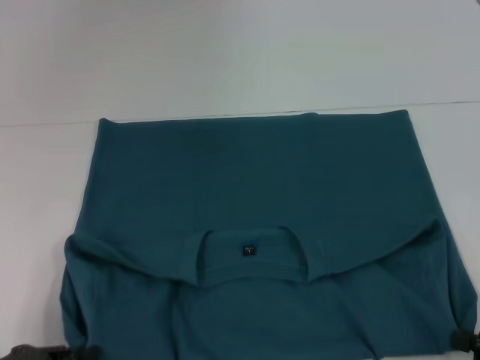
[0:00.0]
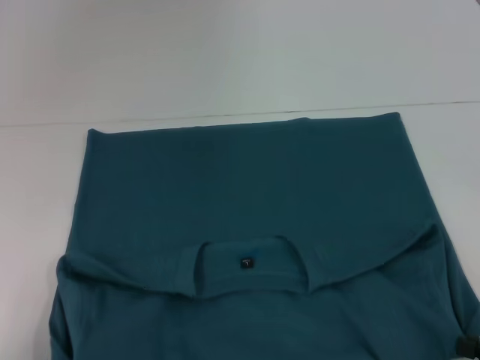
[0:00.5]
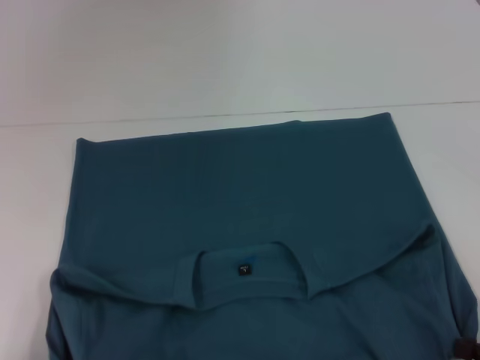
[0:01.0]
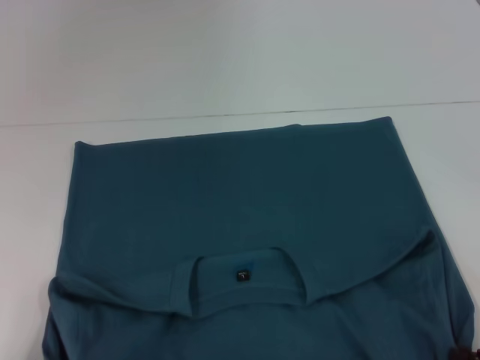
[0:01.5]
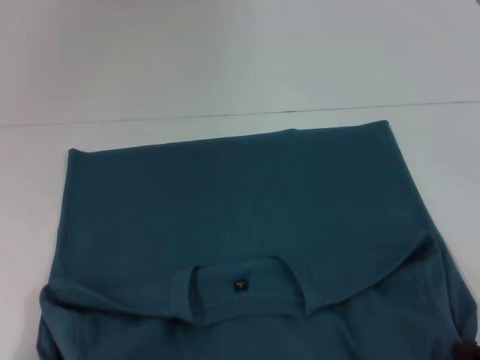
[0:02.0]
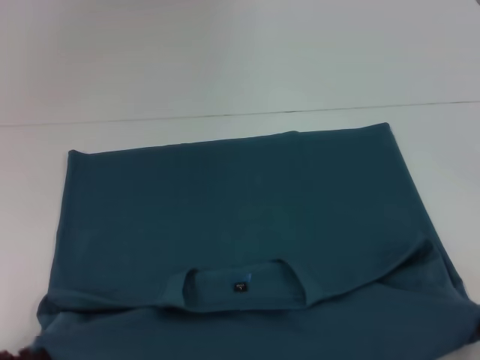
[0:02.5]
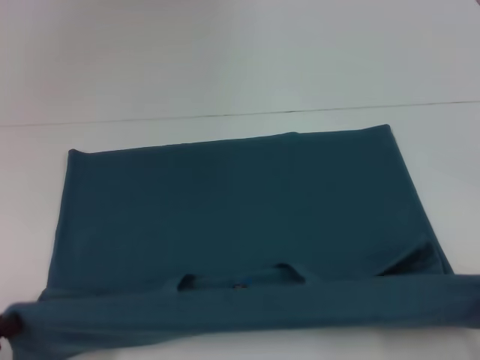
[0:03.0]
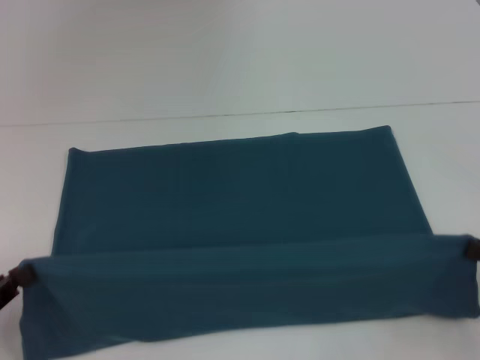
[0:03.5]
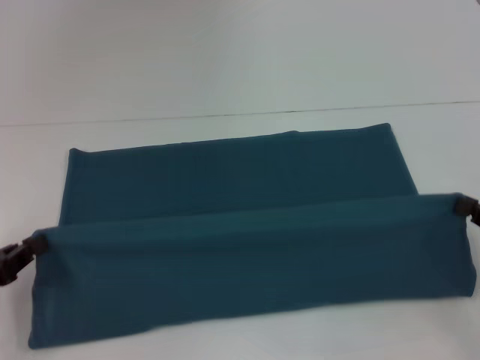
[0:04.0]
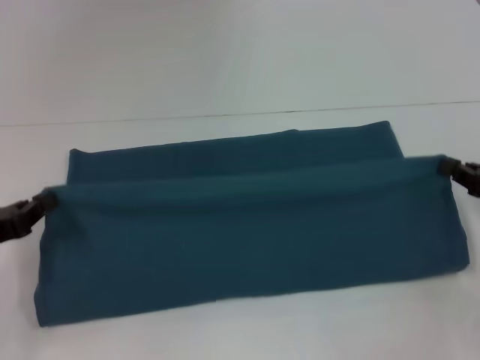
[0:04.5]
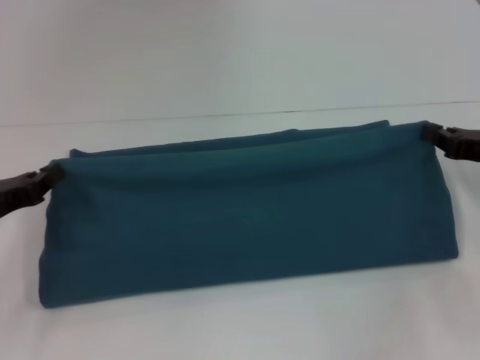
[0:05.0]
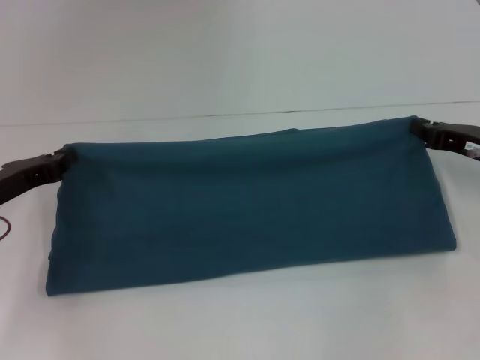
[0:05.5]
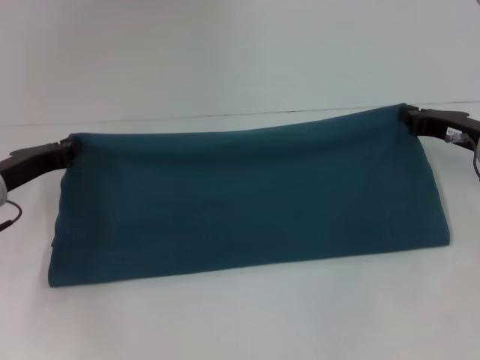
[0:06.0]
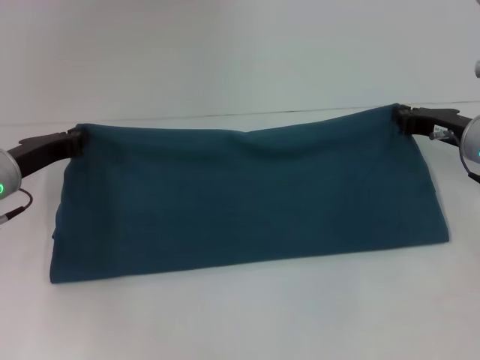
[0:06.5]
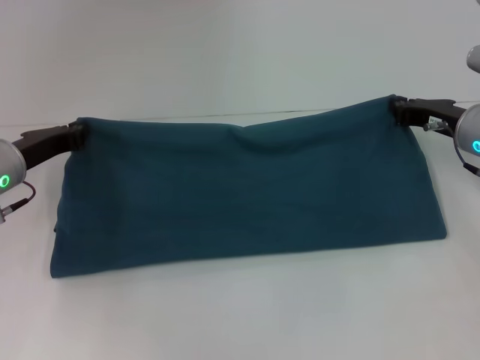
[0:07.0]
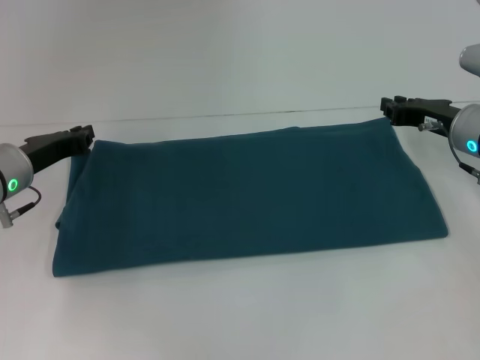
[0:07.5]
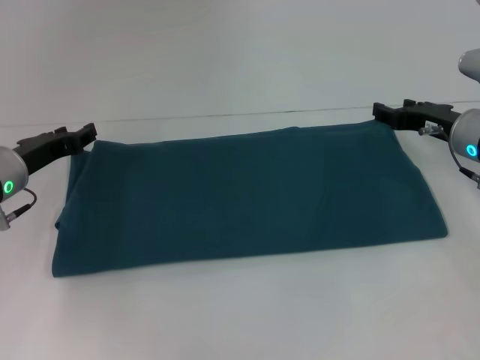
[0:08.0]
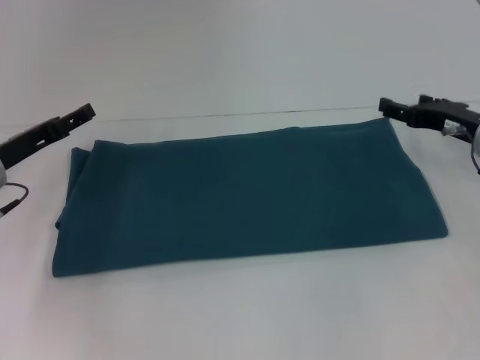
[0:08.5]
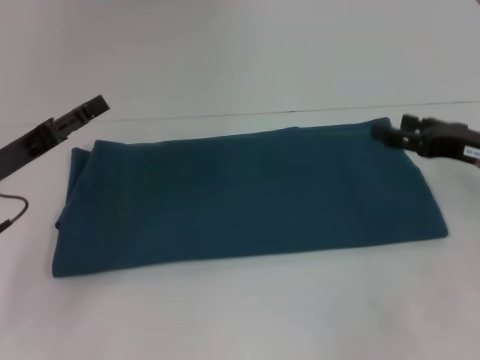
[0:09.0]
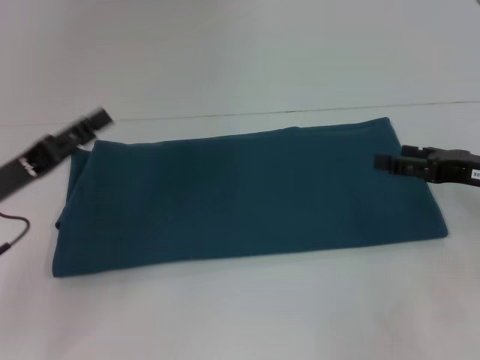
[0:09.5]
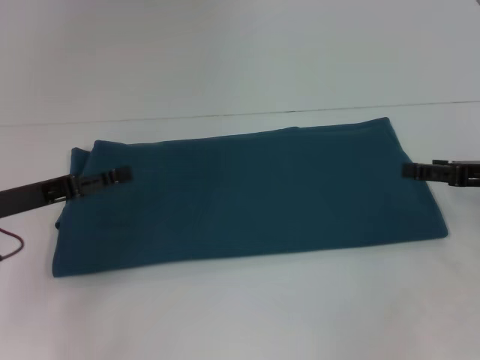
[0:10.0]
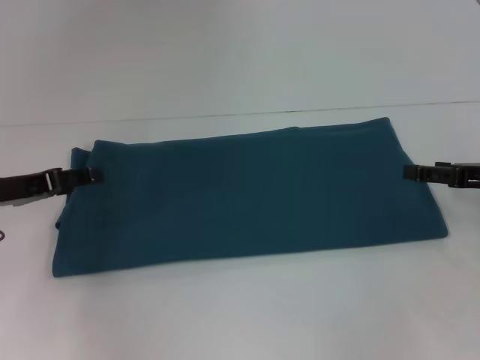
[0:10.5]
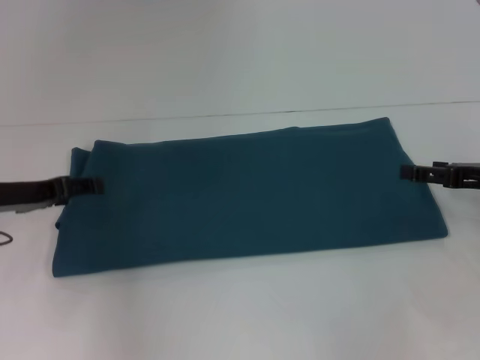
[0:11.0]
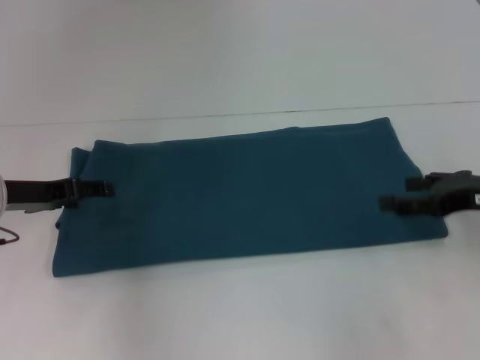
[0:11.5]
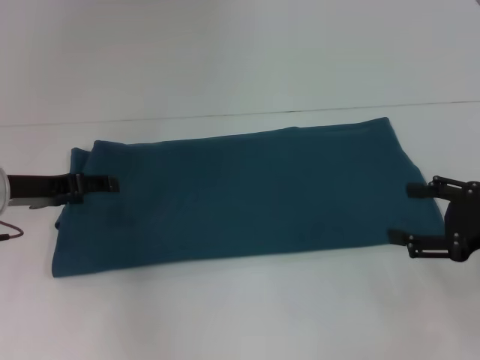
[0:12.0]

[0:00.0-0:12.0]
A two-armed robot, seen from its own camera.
Step, 0:01.0 to 0:07.0: Fold the clothes to the right.
0:00.0 to 0:02.0: The left gripper is displaced backward by approximately 5 cm.
0:02.0 to 0:04.0: The two grippers go approximately 10 cm forward.
0:04.0 to 0:06.0: The left gripper is displaced forward and to the right by roughly 15 cm. The right gripper goes some 15 cm forward and to the left.
0:06.0 to 0:08.0: The left gripper opens its fingers, while the right gripper opens up.
0:08.0 to 0:10.0: The right gripper shifts approximately 10 cm backward and to the right, and opens, while the left gripper moves backward, about 5 cm, and opens up.
0:10.0 to 0:12.0: The right gripper moves backward, approximately 5 cm.

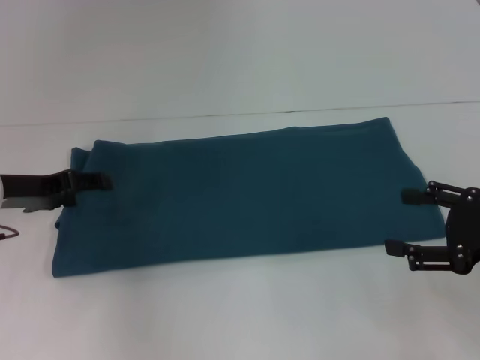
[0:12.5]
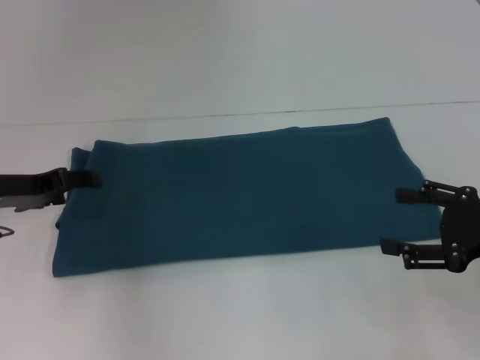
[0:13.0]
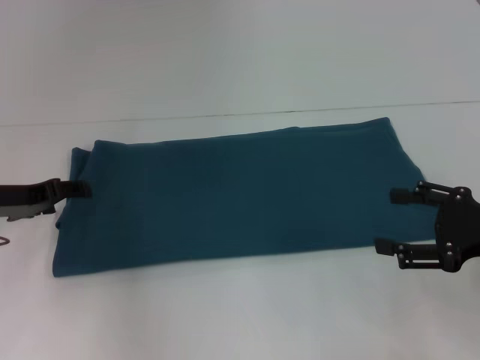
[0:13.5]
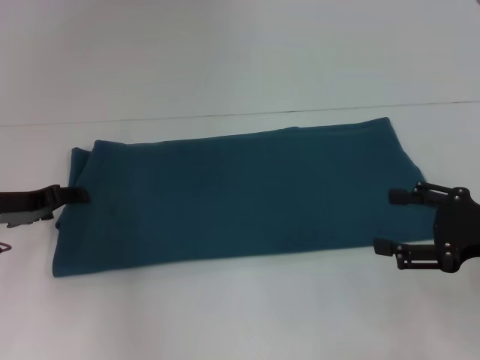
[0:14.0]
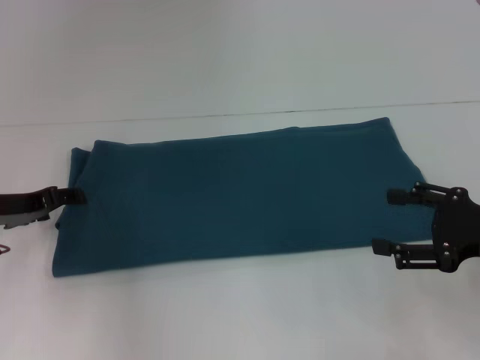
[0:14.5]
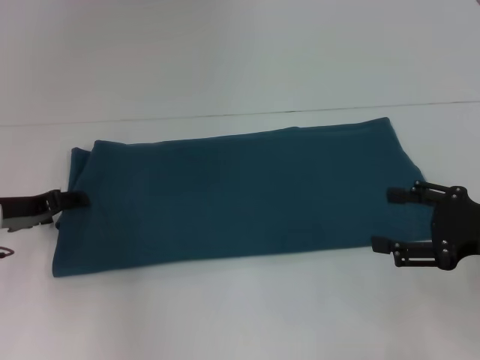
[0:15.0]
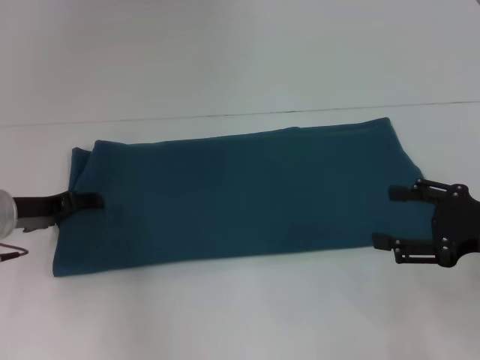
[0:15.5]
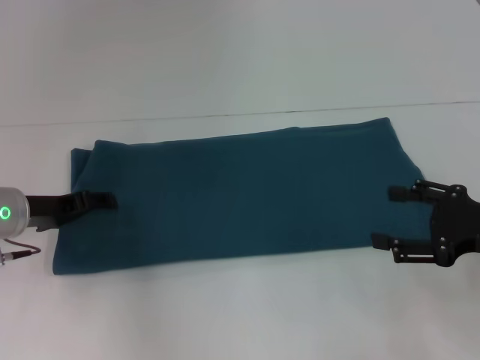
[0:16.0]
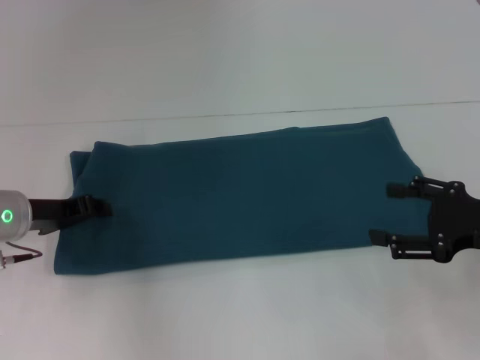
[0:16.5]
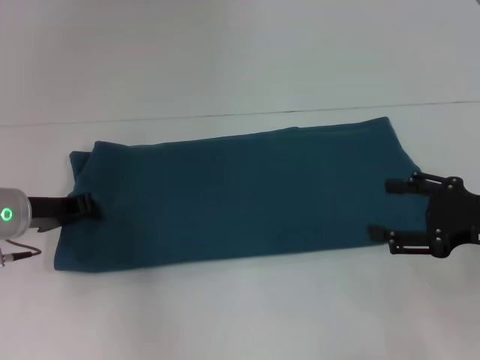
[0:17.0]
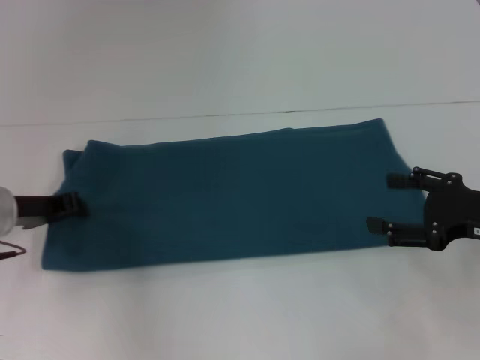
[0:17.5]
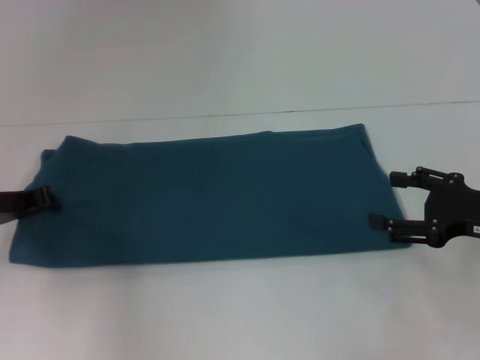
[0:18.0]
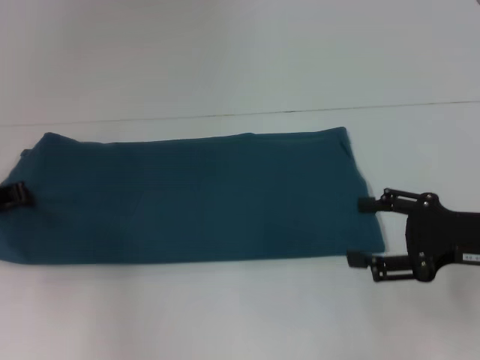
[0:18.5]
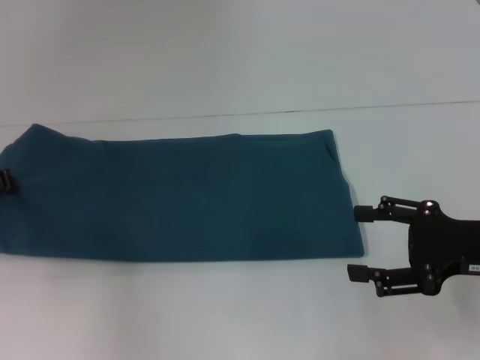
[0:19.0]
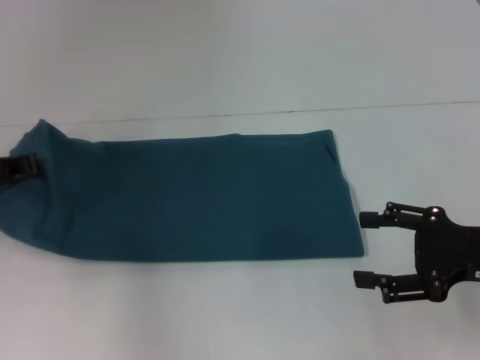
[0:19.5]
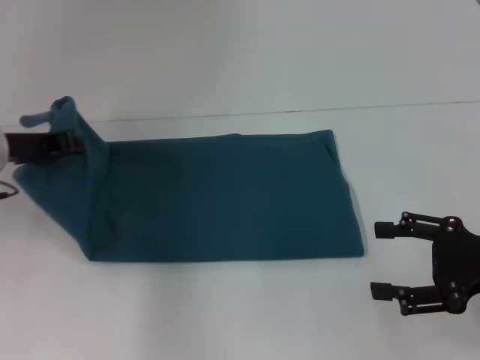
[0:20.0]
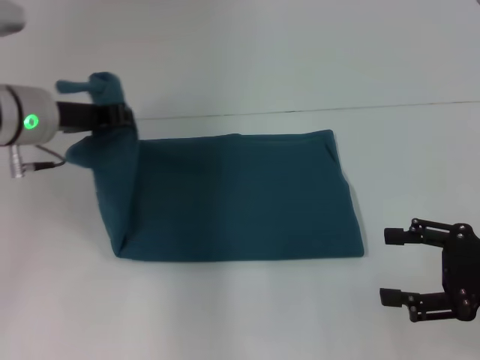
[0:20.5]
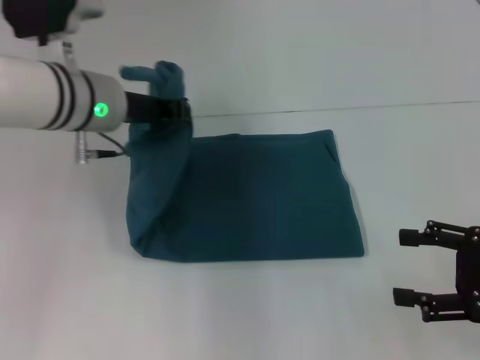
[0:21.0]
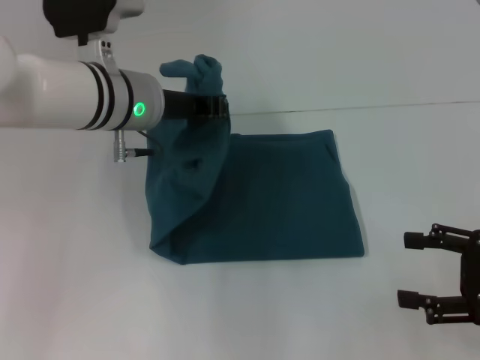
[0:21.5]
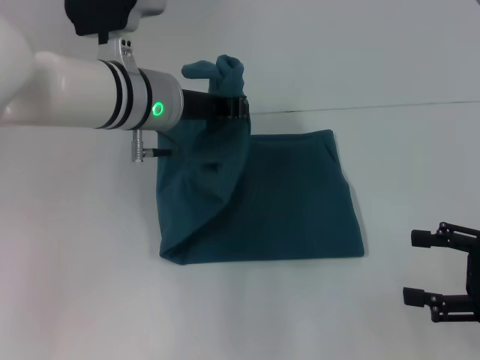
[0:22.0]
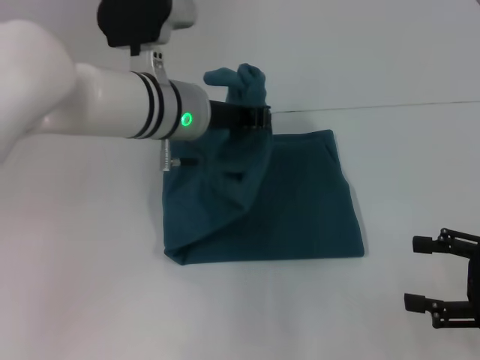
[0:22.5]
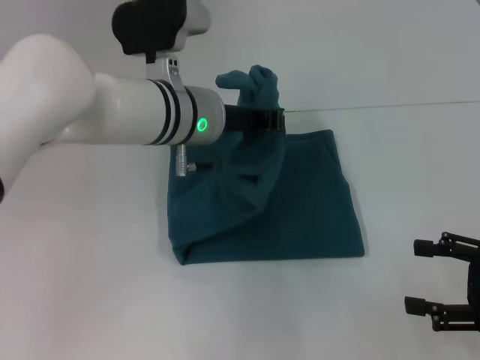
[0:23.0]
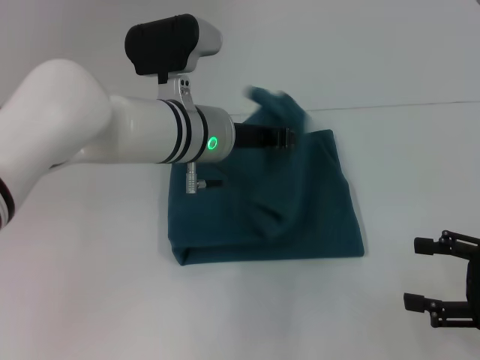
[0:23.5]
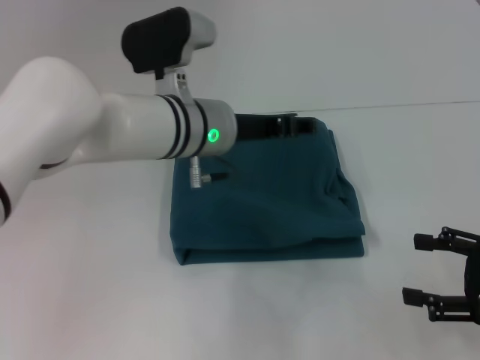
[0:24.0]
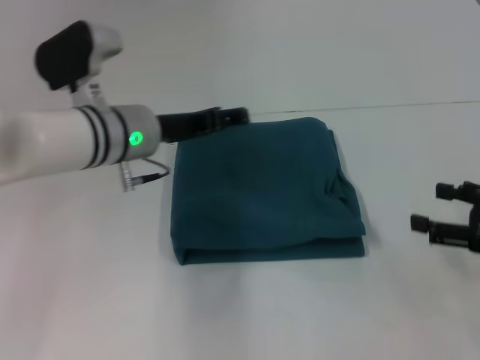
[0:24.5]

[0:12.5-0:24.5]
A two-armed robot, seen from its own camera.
Step, 0:12.5 to 0:24.0: Fold the clothes to the left.
0:12.5 to 0:16.5: The grippers stay close to where they were, moving slightly.
0:16.5 to 0:18.5: The left gripper travels to the left by about 5 cm, and closes its fingers.
0:18.5 to 0:20.5: The left gripper moves to the right and upward, some 15 cm.
0:20.5 to 0:22.5: The left gripper heads to the right, covering approximately 15 cm.
0:22.5 to 0:24.5: The left gripper shifts approximately 5 cm to the left, and opens up.

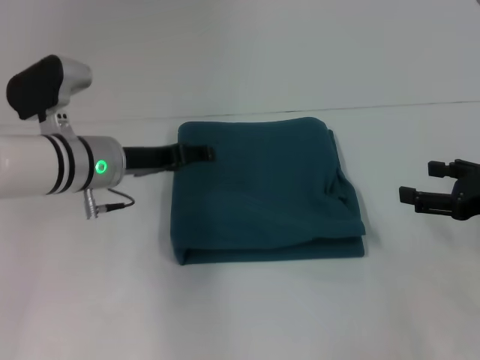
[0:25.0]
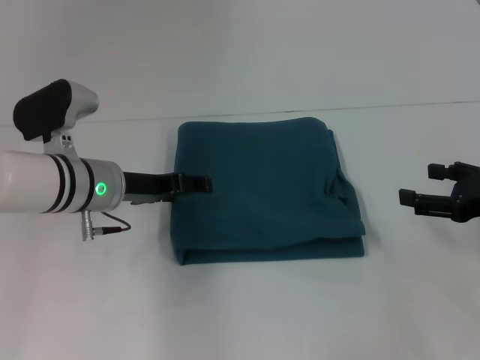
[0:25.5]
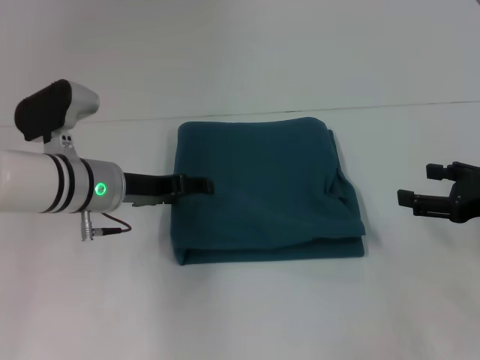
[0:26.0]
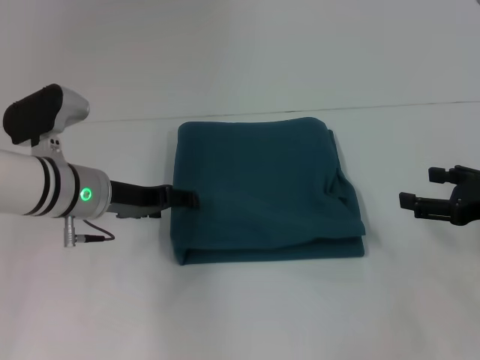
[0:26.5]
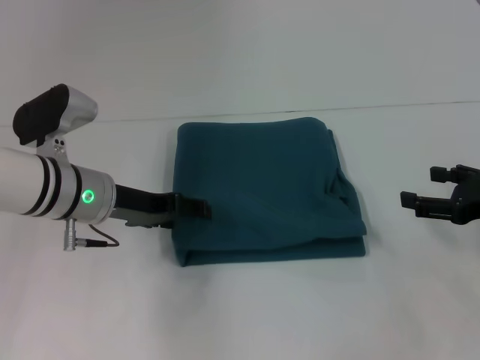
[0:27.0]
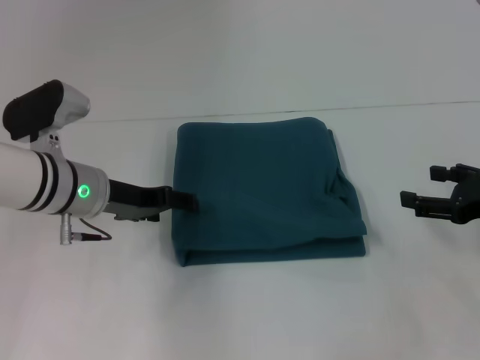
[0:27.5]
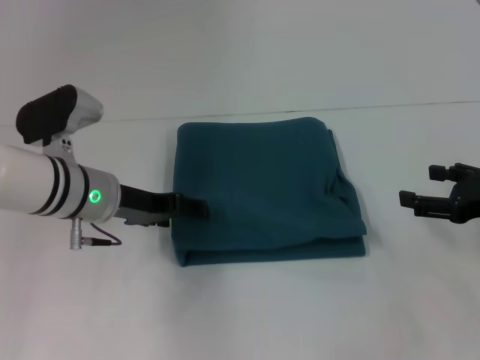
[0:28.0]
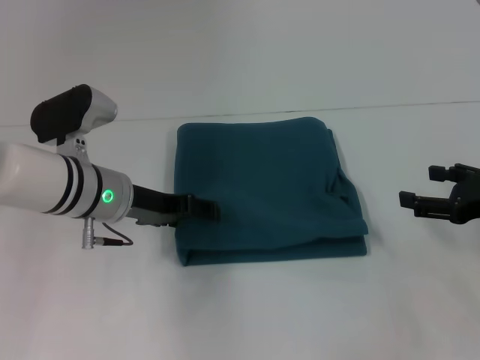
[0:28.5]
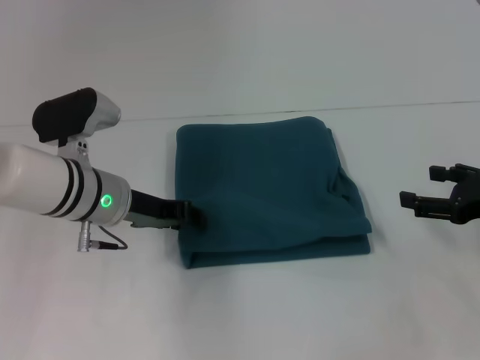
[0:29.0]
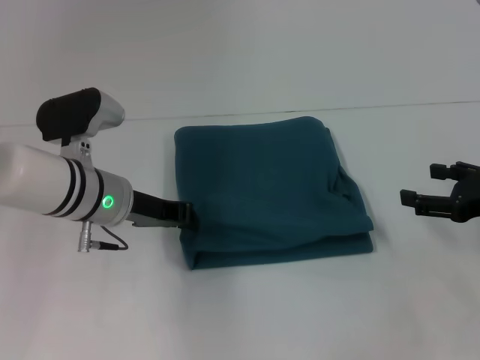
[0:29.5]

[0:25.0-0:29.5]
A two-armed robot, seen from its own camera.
0:25.0 to 0:27.0: The grippers make only small movements.
0:27.0 to 0:29.5: The left gripper closes.
